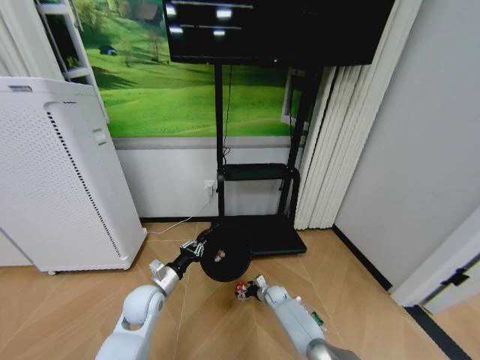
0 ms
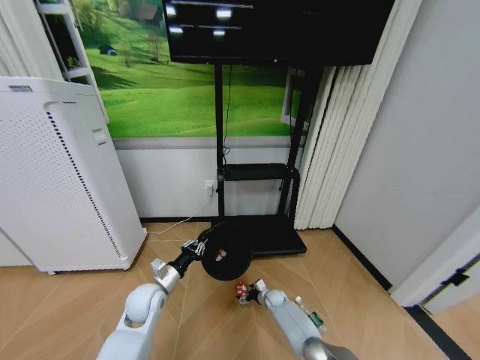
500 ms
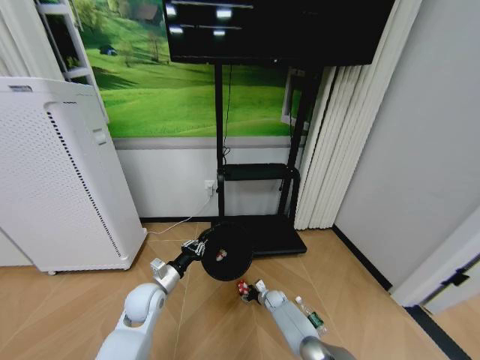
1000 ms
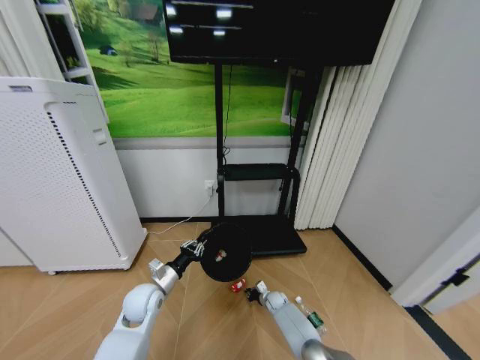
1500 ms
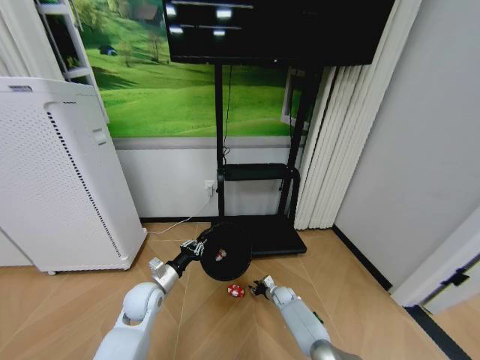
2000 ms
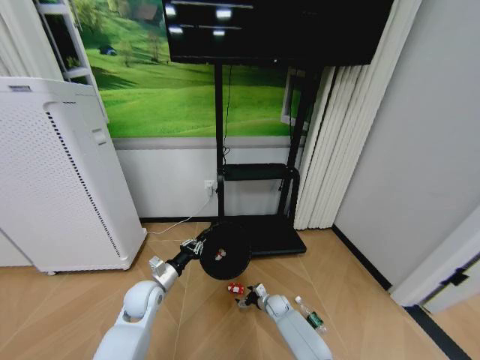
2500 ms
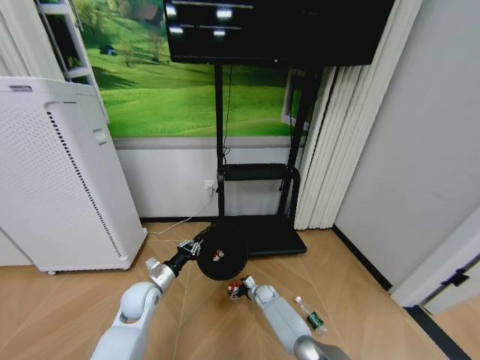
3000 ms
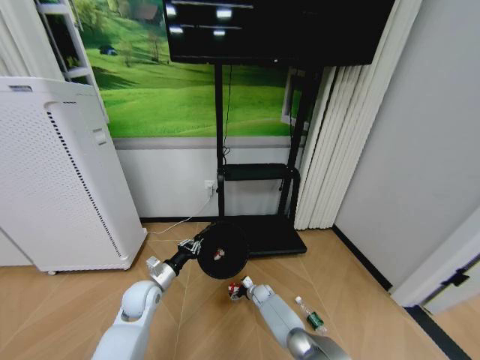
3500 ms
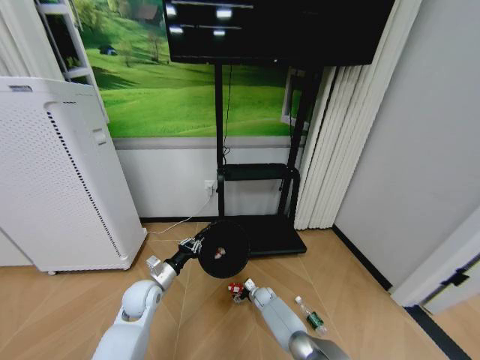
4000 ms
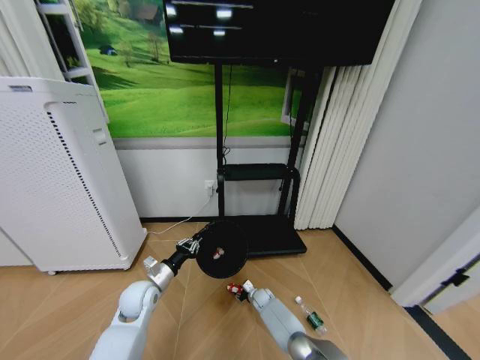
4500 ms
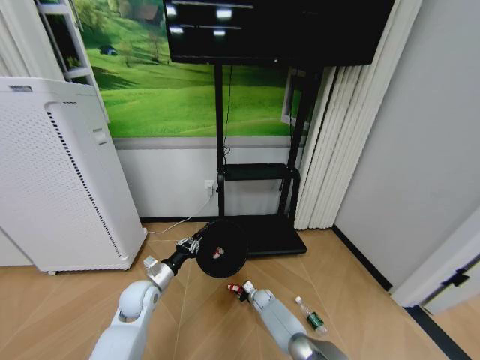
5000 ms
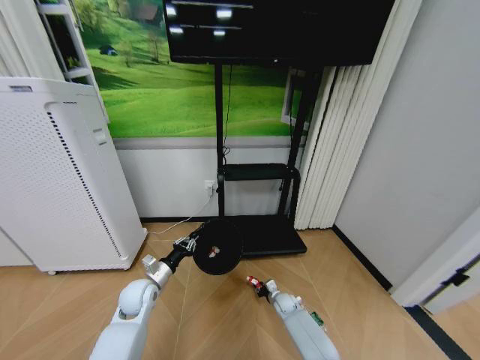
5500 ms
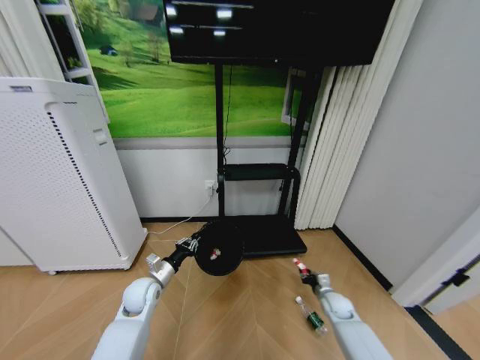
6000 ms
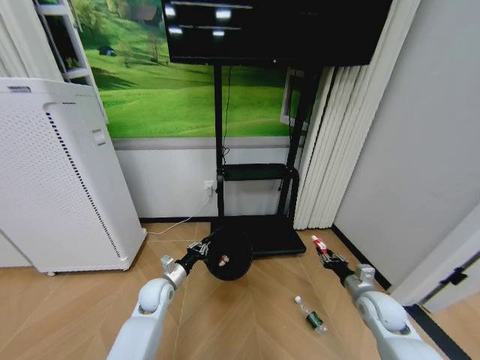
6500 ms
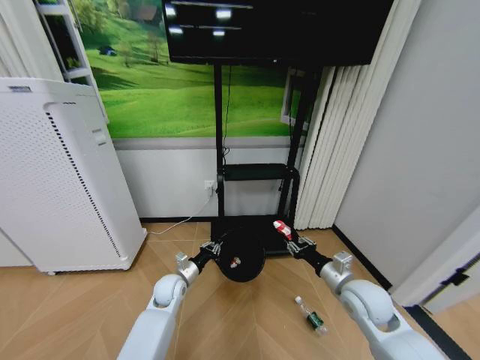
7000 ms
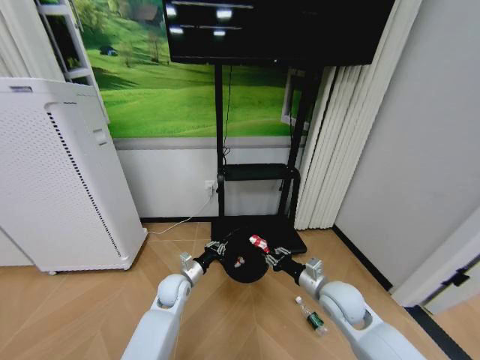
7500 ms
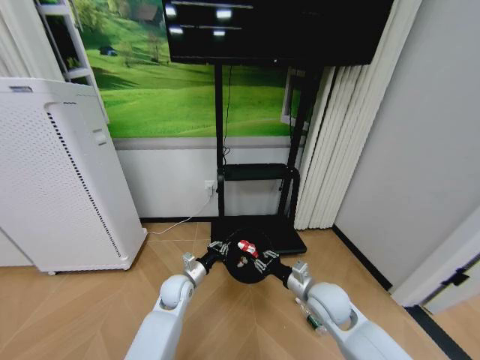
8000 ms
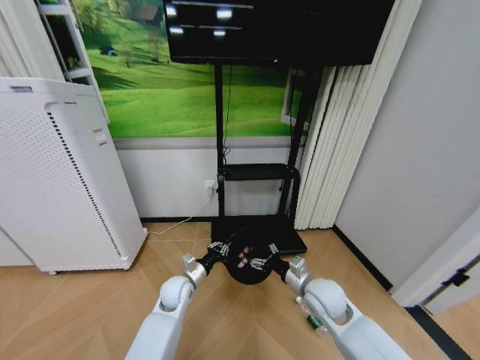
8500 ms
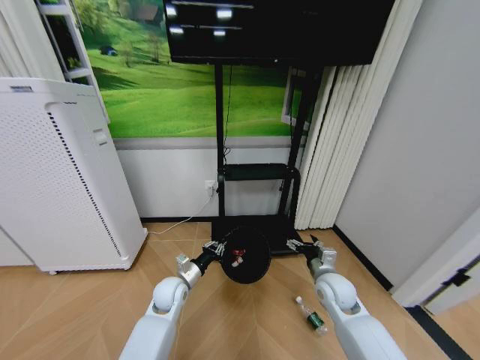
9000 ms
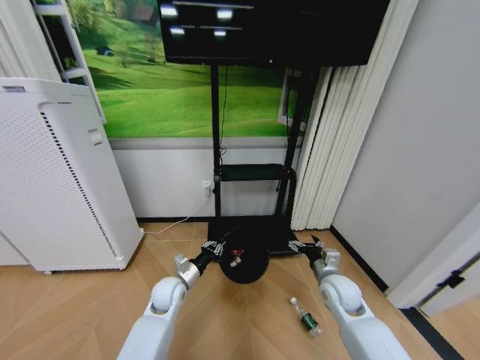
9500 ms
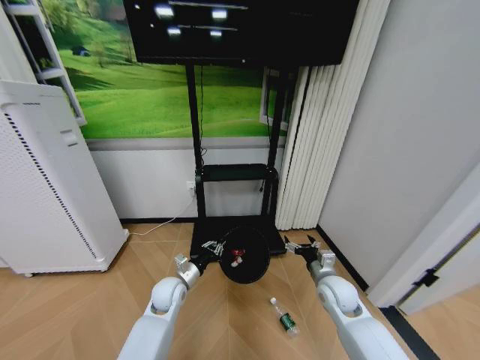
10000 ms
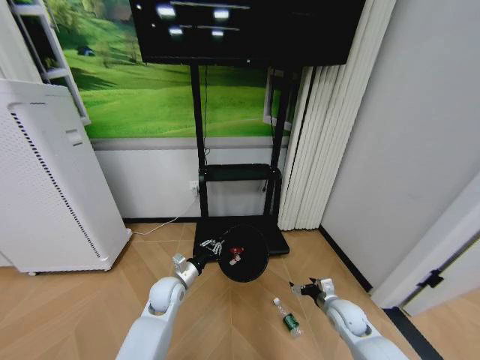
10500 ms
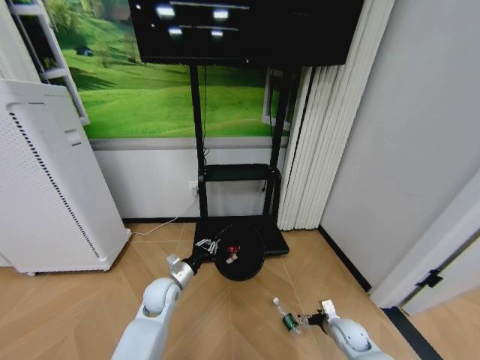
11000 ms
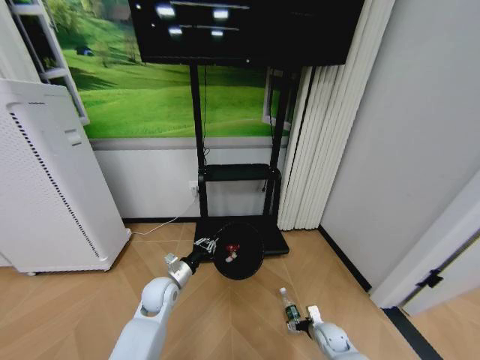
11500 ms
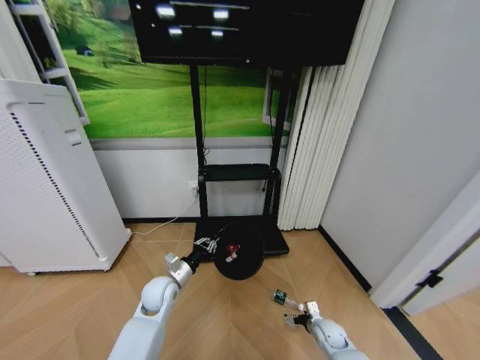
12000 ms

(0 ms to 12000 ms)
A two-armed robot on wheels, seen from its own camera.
Task of the whole recording: Pick up the trash bin and place the garbage on the floor into it.
0 ms - 2000 ms: The right gripper closes its fingers.
2000 ms - 4000 ms: The right gripper travels to the left by some 10 cm, and opens up.
4000 ms - 6000 ms: The right gripper heads to the right and upward, covering some 25 cm, and closes its fingers.
6000 ms - 8000 ms: The right gripper is displaced upward and to the left by some 25 cm; the left gripper heads to the right, covering about 10 cm.
8000 ms - 10000 ms: The right gripper travels to the right by roughly 5 cm, and opens its fingers.
10000 ms - 12000 ms: The right gripper travels downward by roughly 20 cm.

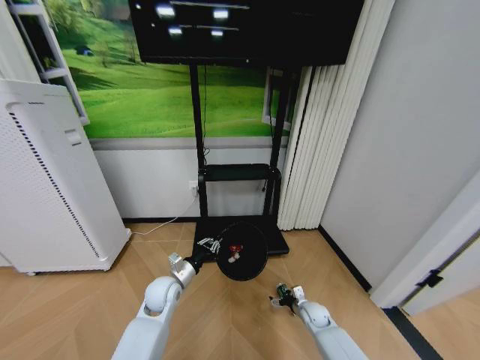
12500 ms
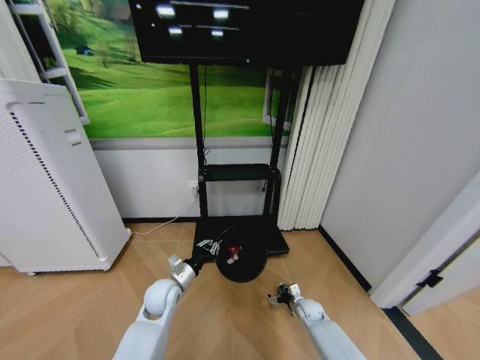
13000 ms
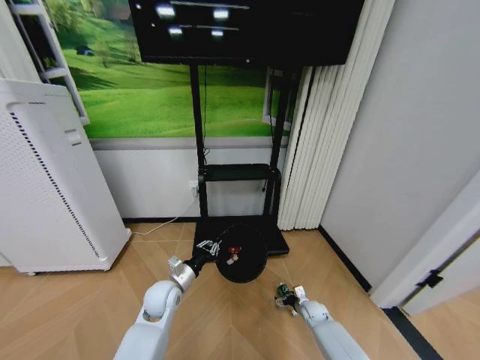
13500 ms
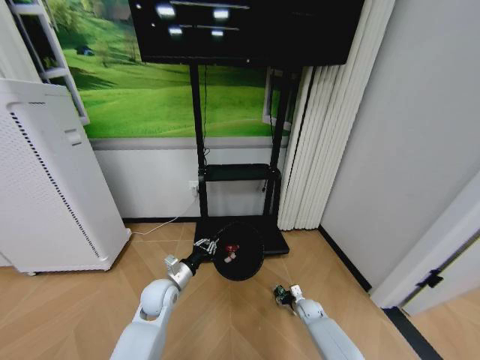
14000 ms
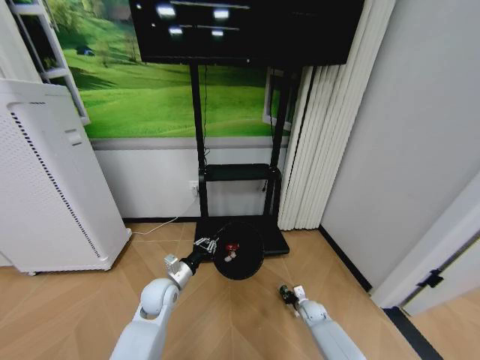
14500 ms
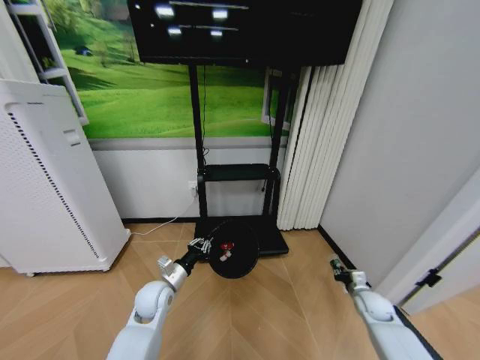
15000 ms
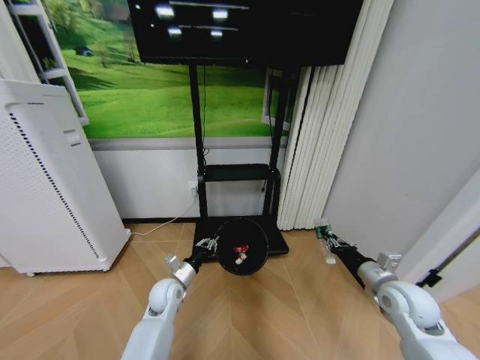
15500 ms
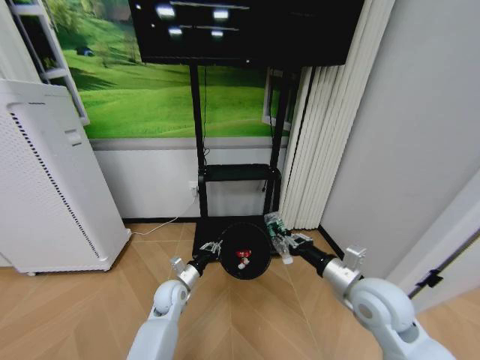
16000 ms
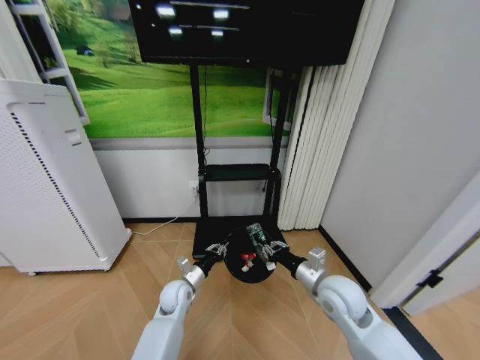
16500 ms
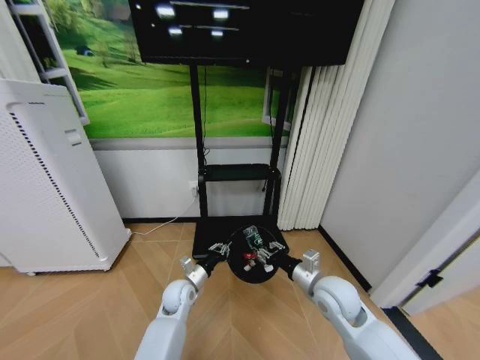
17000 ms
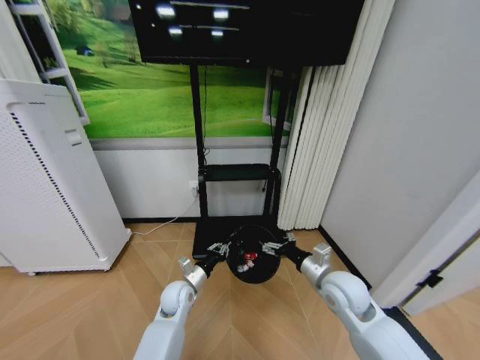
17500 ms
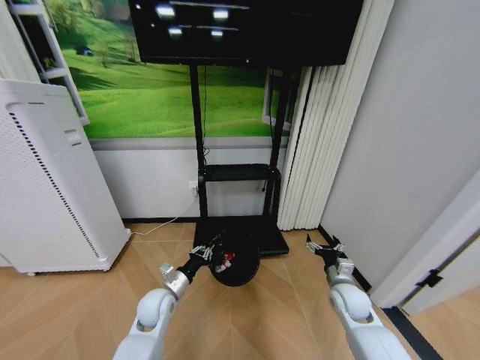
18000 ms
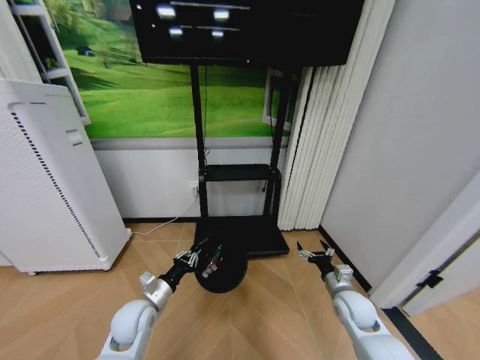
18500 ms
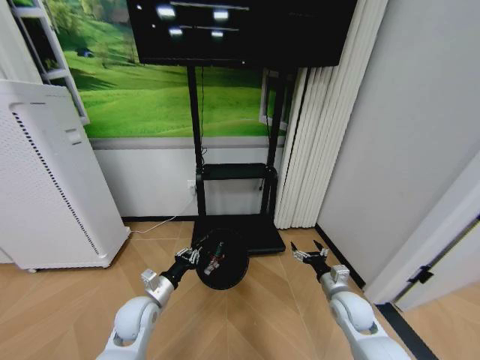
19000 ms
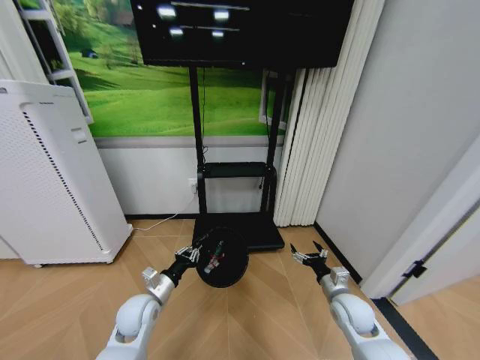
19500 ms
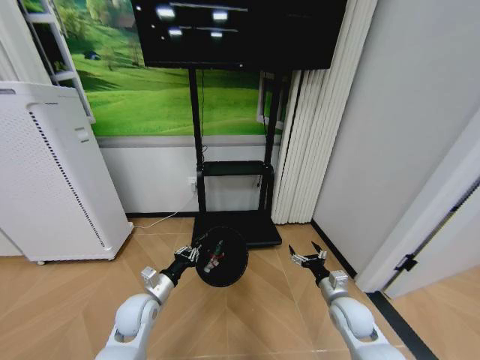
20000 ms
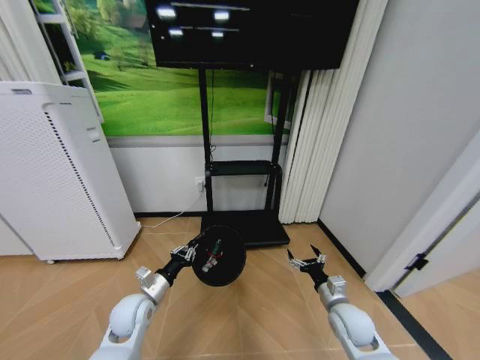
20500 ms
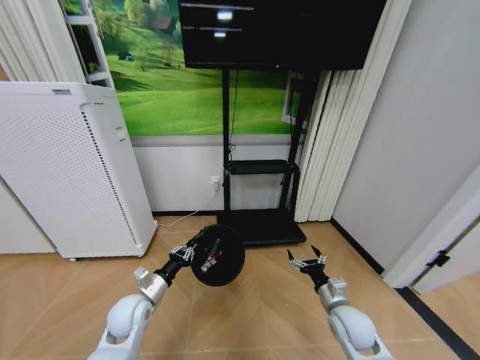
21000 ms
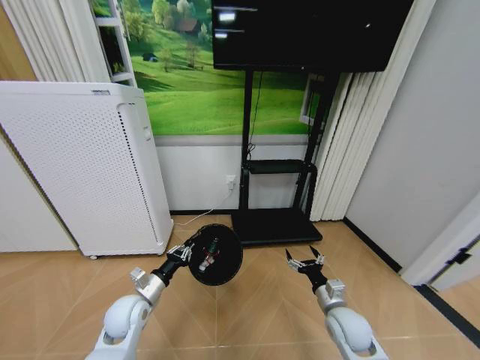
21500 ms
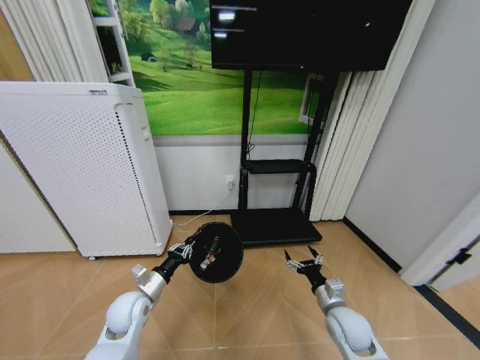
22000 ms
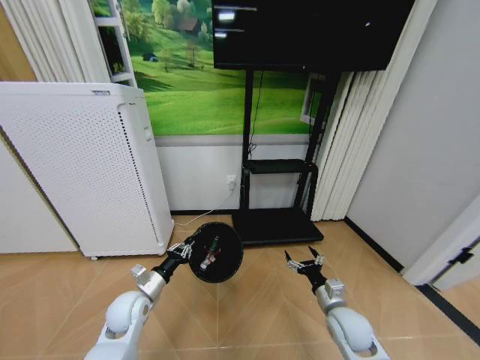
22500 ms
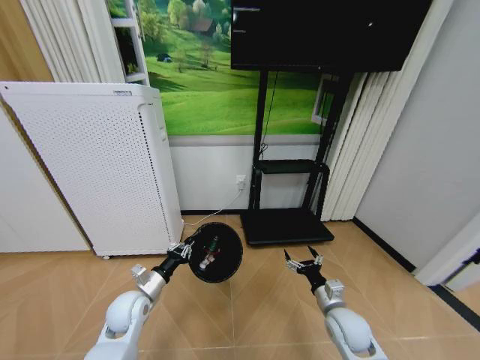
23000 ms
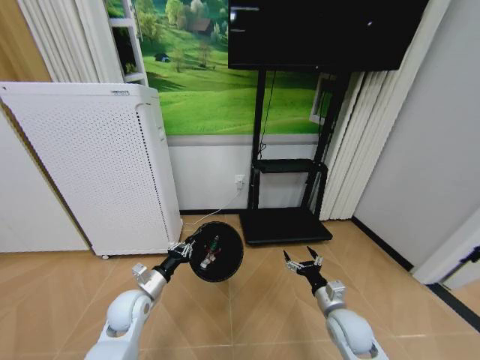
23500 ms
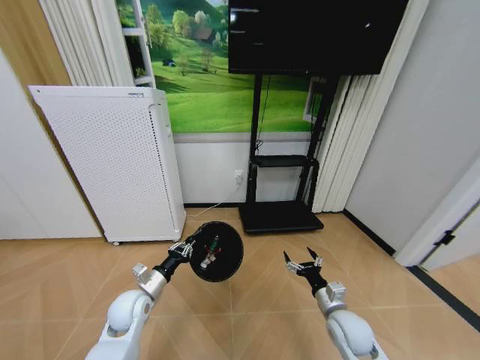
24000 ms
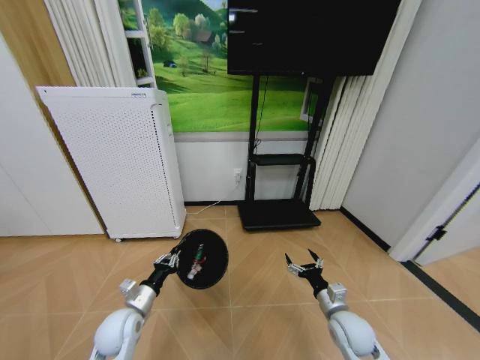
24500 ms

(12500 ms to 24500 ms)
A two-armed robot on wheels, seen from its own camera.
Task of the whole recording: Pick up the trash bin and place the garbage on the floor into it.
12500 ms - 14500 ms: The right gripper changes place by roughly 5 cm, and closes up.
14500 ms - 16500 ms: The right gripper moves upward, about 35 cm; the left gripper is displaced downward by roughly 5 cm.
16500 ms - 18500 ms: The left gripper travels backward, to the left and upward by roughly 15 cm. The right gripper heads downward and to the right, covering about 15 cm, and opens its fingers.

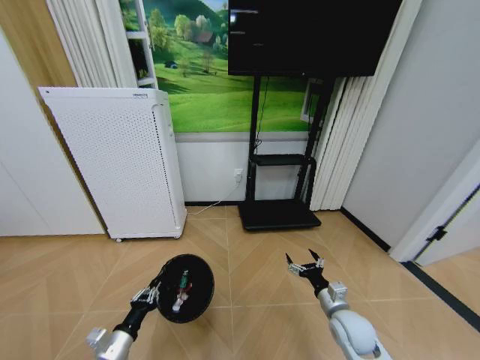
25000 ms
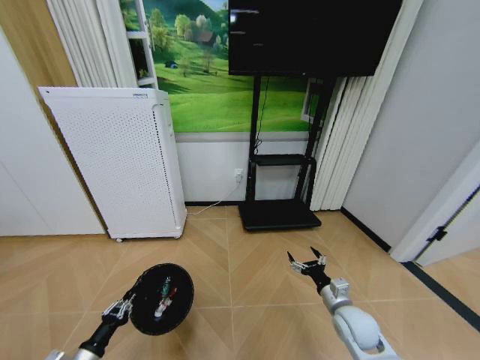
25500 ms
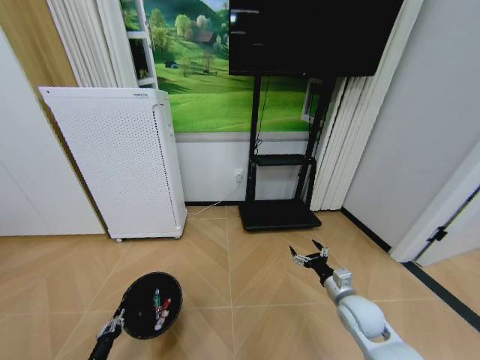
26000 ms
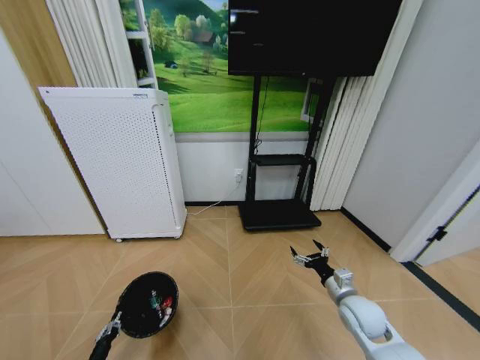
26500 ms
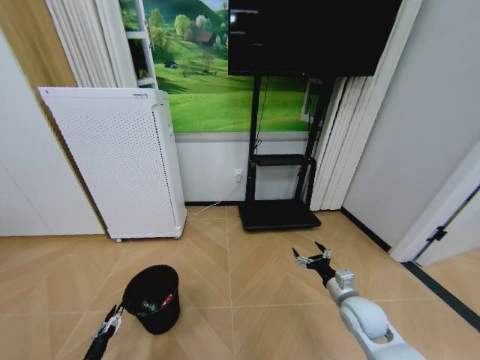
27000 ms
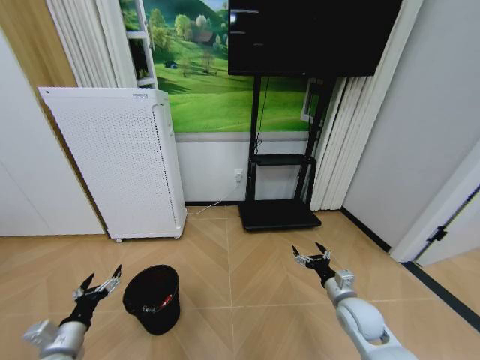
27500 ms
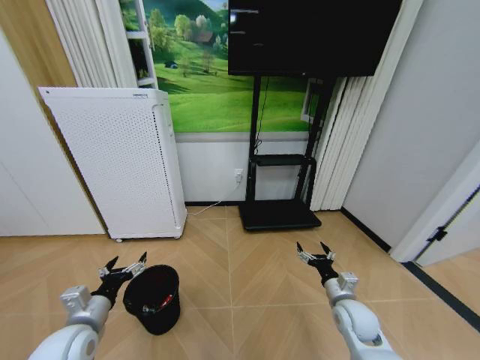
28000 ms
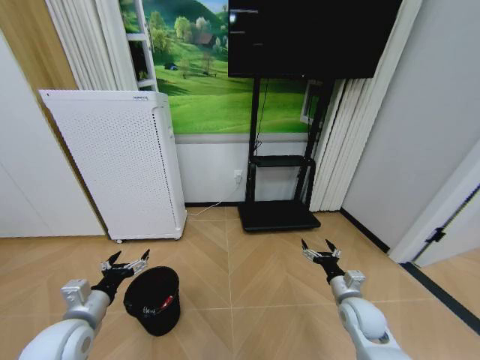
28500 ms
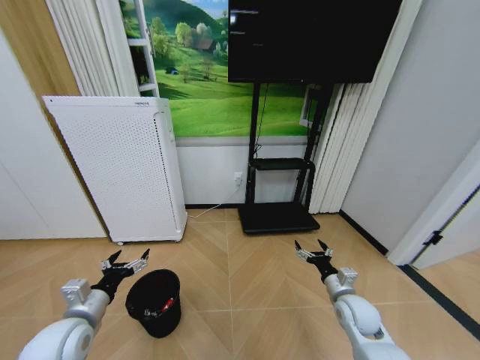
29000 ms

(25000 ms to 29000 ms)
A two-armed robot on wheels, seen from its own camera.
Task of the whole recording: Pick up the trash bin and place the garbage on the floor into it.
25000 ms - 27000 ms: The left gripper goes about 15 cm downward and to the left, and opens.
27000 ms - 29000 ms: The left gripper shifts roughly 25 cm upward, and opens.
